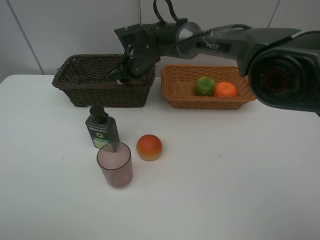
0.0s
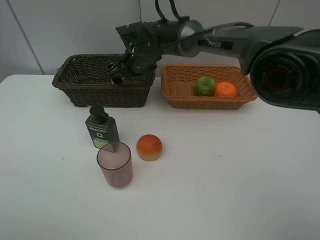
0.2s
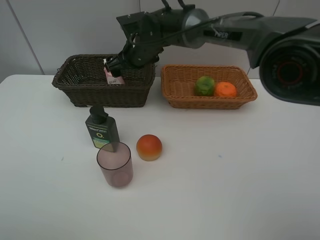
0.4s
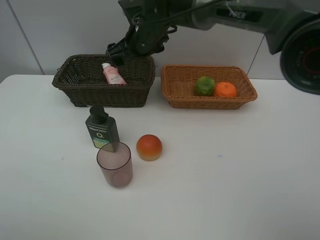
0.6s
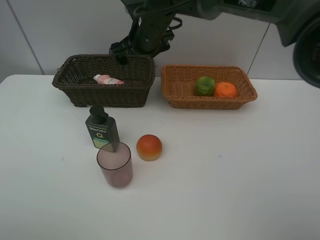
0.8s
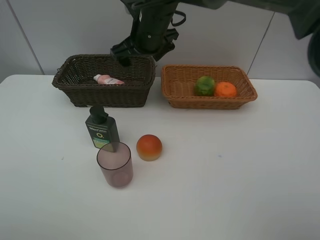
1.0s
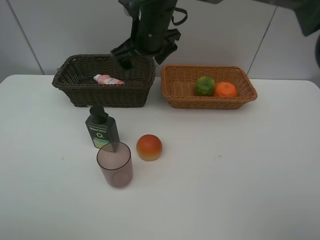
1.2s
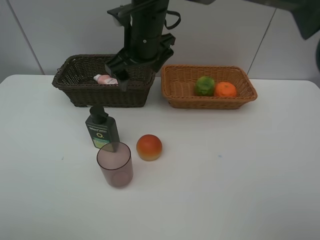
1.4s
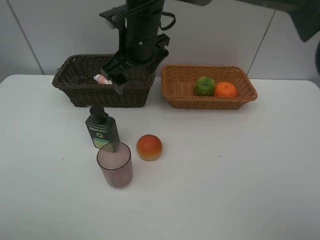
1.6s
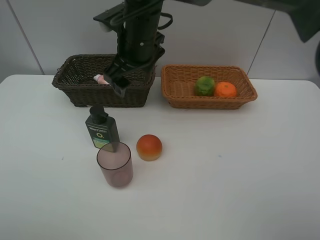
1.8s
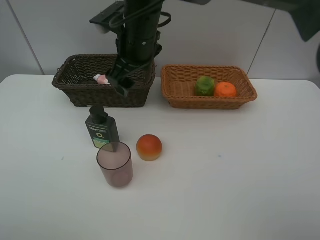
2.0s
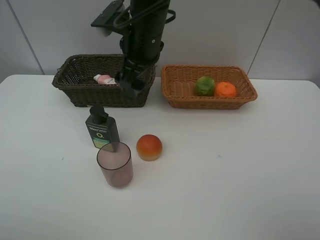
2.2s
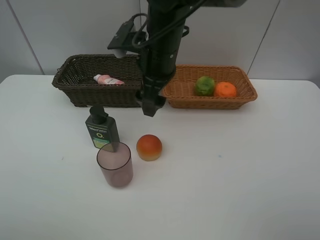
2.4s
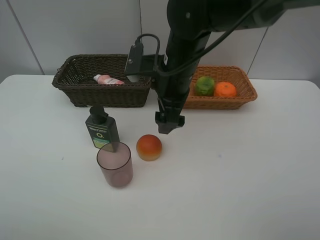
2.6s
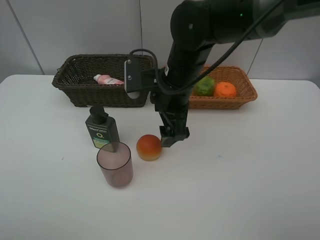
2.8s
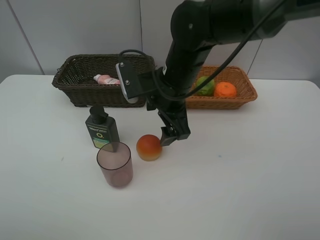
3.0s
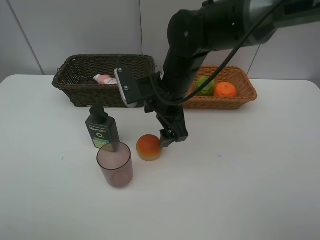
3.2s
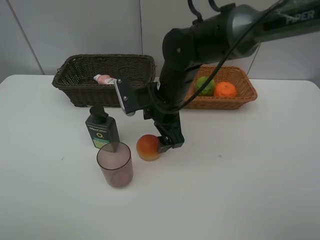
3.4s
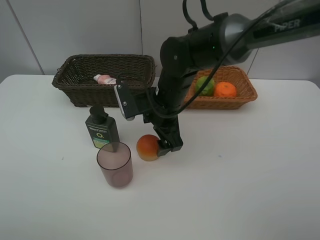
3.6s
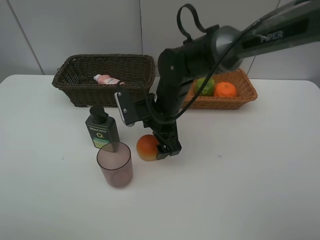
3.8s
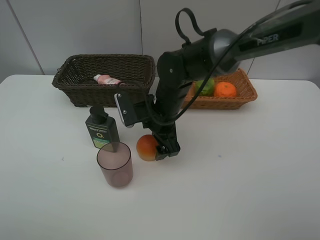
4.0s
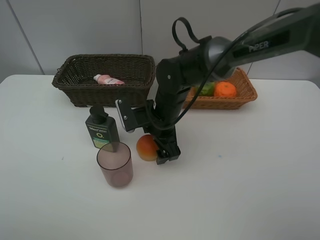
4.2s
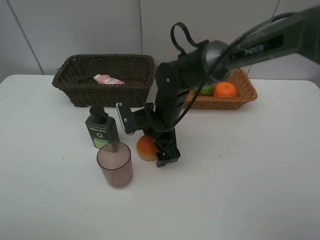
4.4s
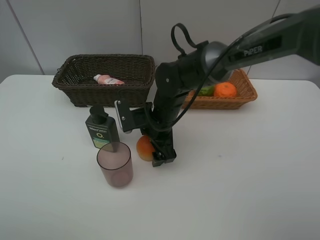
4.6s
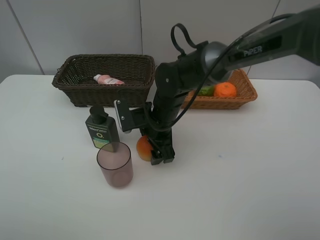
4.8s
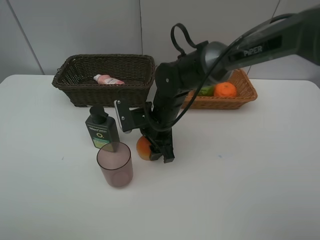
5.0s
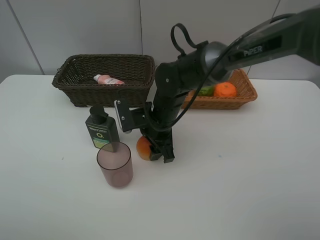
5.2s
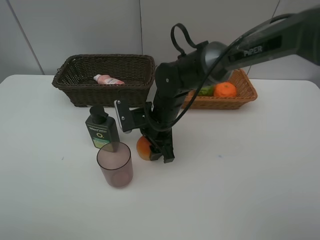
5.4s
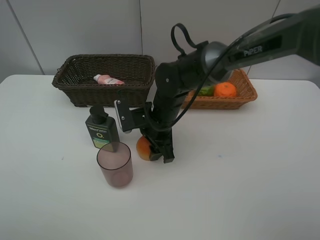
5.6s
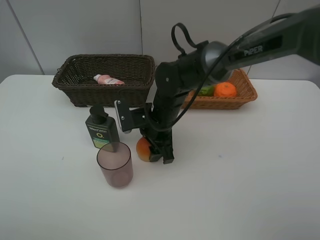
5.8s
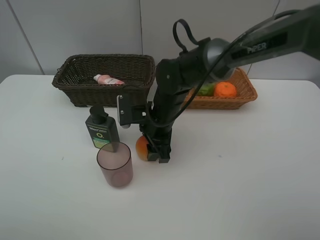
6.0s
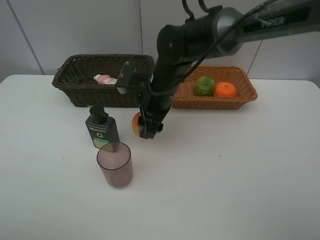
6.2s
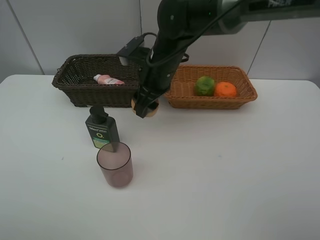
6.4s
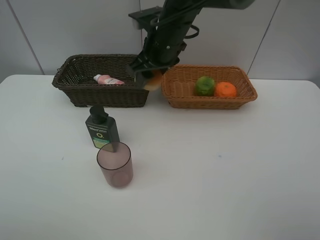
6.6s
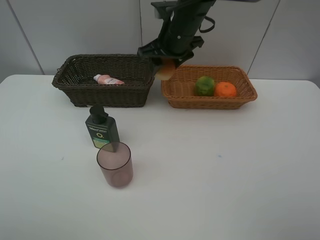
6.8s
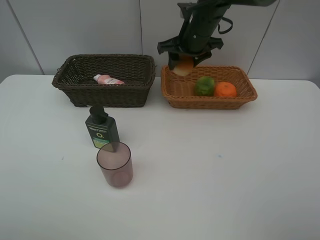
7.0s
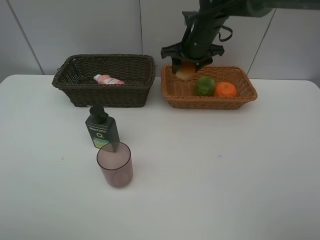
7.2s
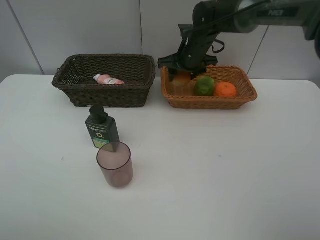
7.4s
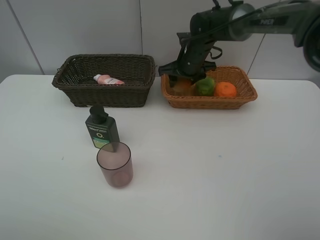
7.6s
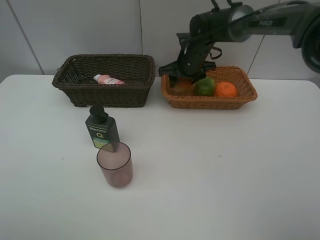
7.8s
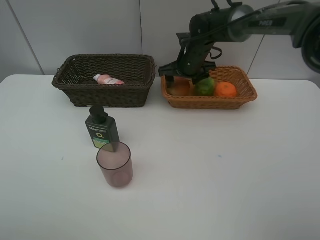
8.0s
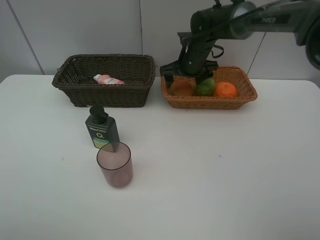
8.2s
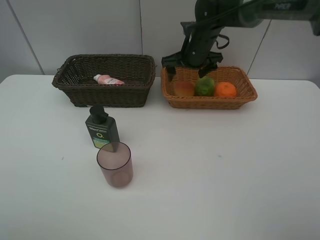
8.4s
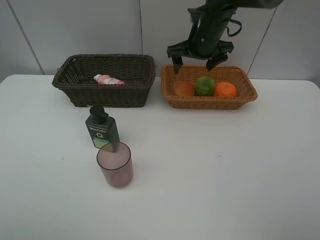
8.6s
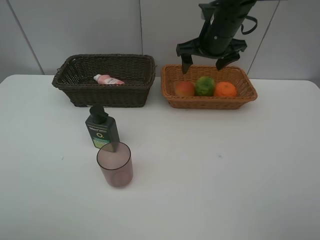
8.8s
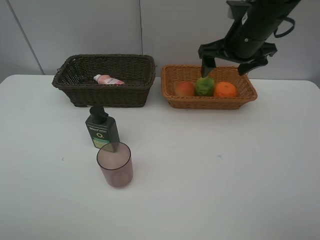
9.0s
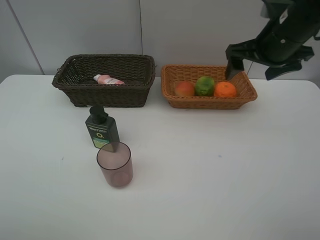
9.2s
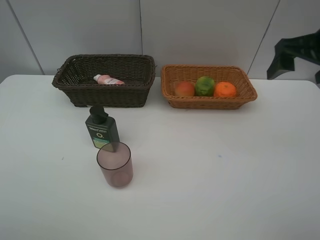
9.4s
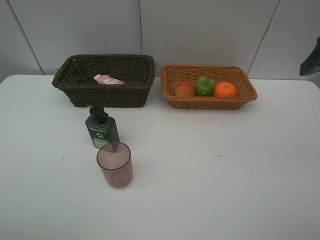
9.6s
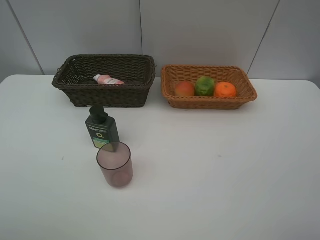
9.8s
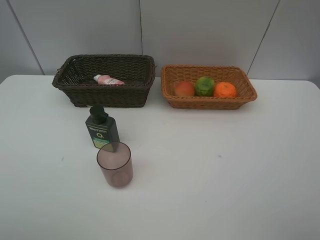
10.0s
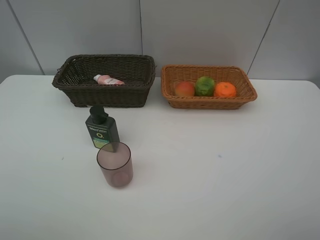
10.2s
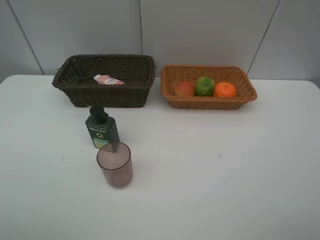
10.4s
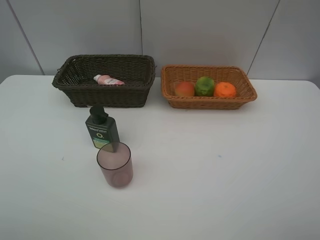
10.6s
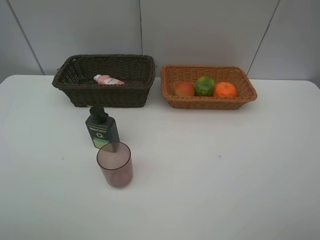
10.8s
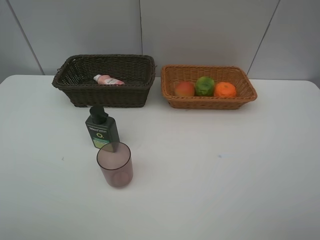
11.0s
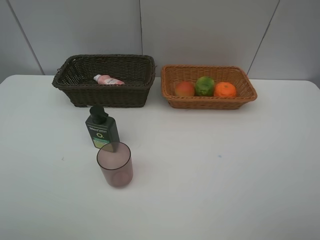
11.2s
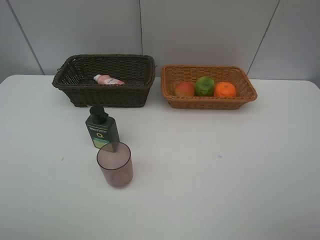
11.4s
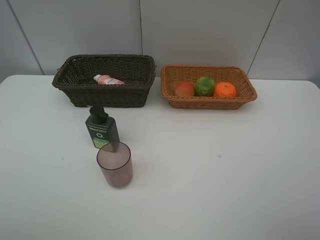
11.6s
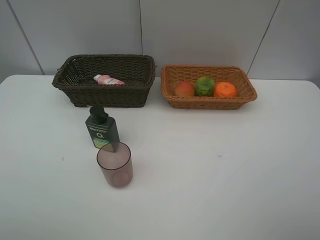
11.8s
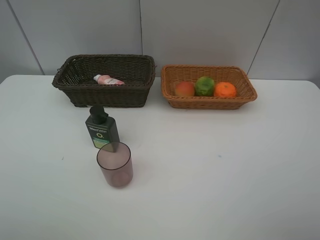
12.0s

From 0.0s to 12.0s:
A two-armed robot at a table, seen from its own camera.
Task of the whole recording: place multiple objects separately in different baskets.
From 0.0s to 1.6s: The right gripper goes roughly 15 cm upward and backward, and opens its fingers.
From 1.6s to 3.0s: The right gripper moves to the right, downward and backward, about 10 cm.
From 3.0s to 4.4s: The right gripper heads downward, covering roughly 10 cm.
From 4.4s to 6.0s: The right gripper closes up.
From 6.0s to 7.6s: The right gripper travels forward and to the right by roughly 15 cm.
From 7.6s to 9.0s: The right gripper goes approximately 20 cm backward, upward and to the right, and opens up.
From 9.0s to 10.4s: The right gripper travels backward by approximately 40 cm.

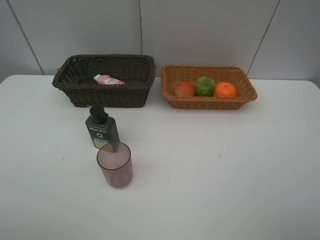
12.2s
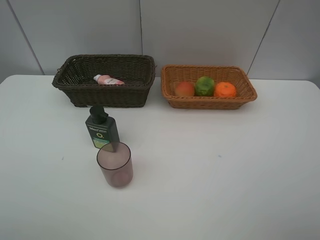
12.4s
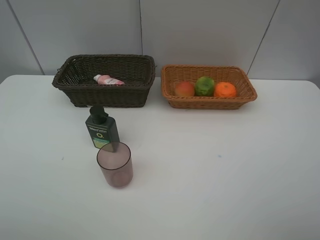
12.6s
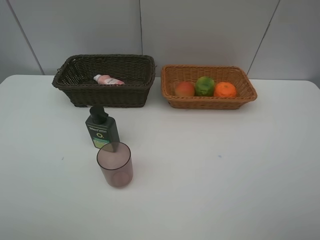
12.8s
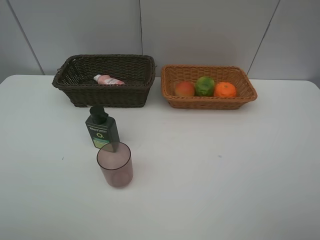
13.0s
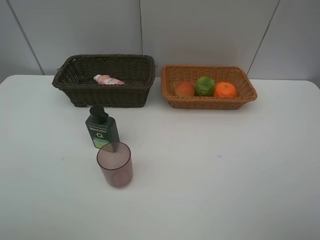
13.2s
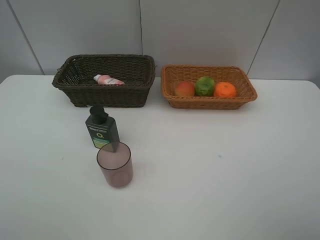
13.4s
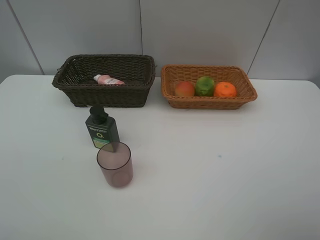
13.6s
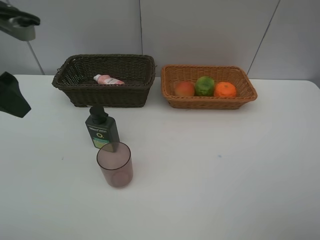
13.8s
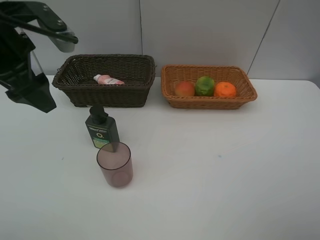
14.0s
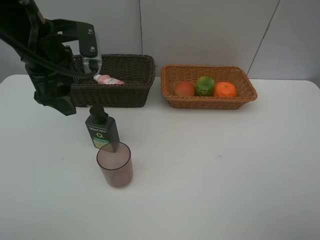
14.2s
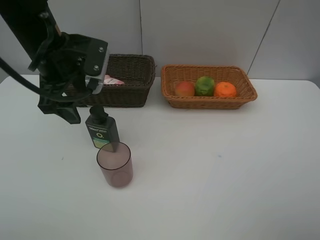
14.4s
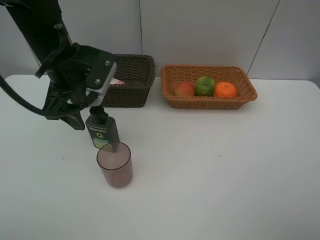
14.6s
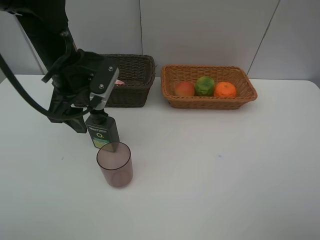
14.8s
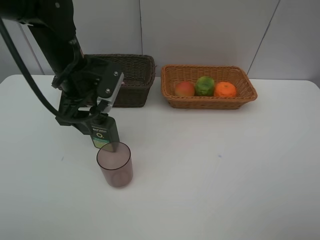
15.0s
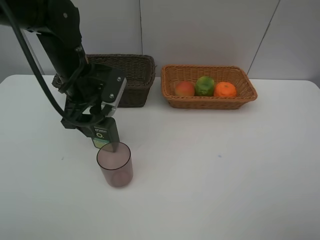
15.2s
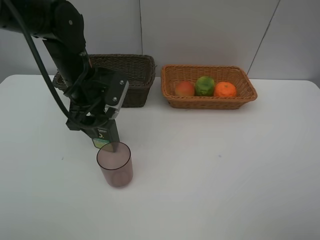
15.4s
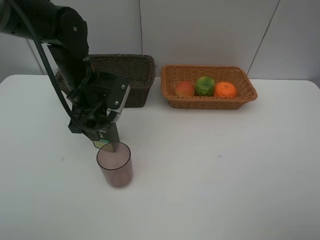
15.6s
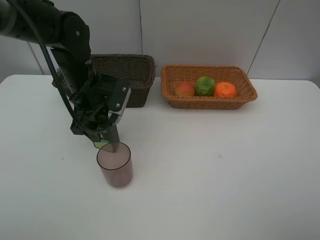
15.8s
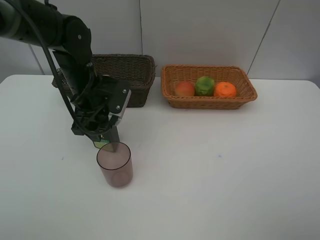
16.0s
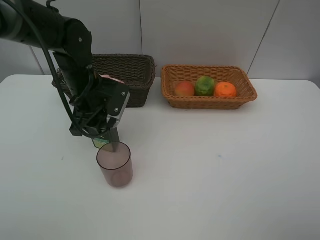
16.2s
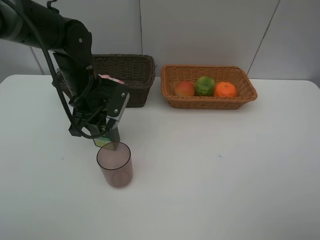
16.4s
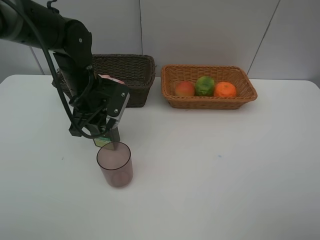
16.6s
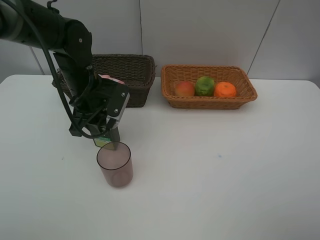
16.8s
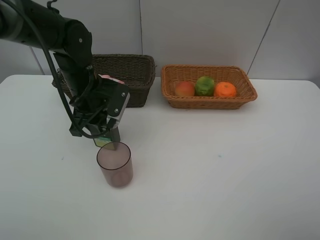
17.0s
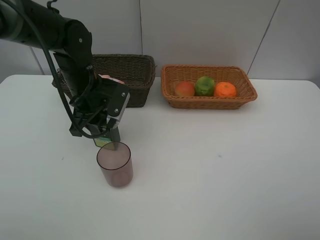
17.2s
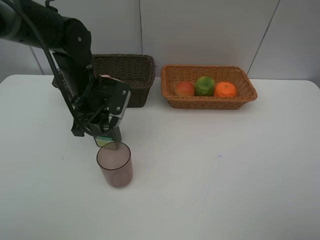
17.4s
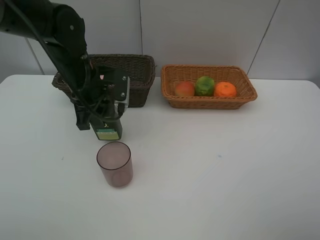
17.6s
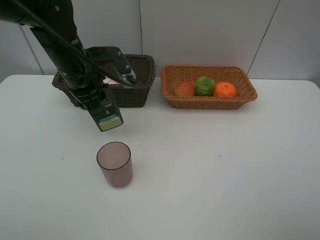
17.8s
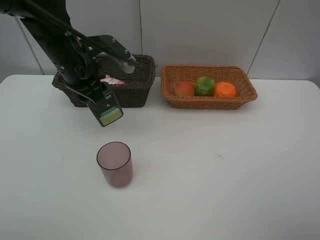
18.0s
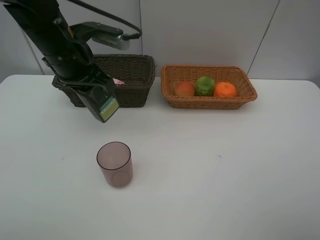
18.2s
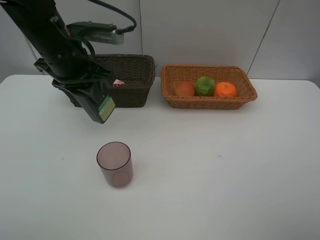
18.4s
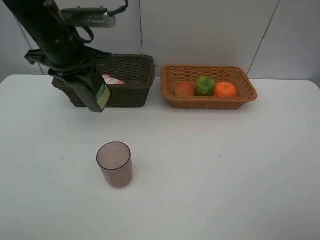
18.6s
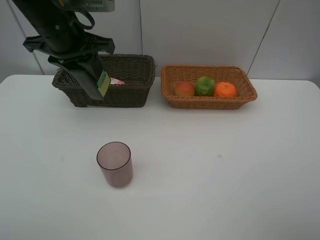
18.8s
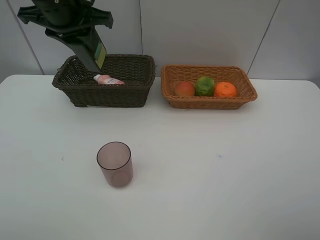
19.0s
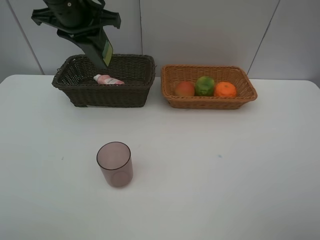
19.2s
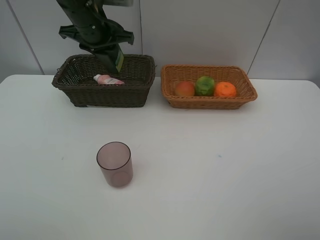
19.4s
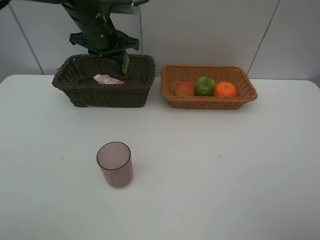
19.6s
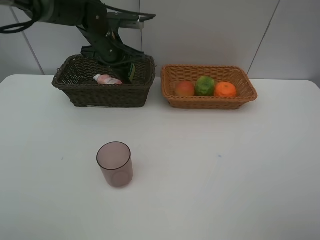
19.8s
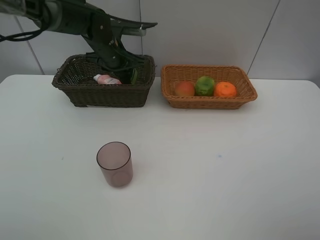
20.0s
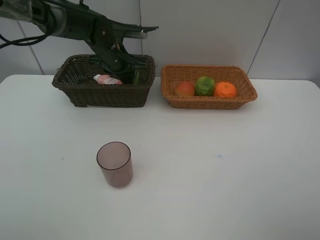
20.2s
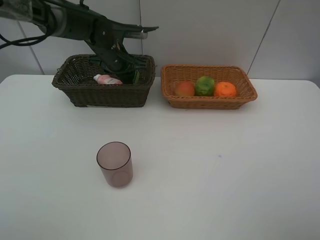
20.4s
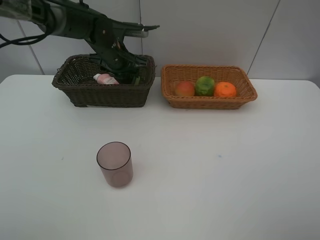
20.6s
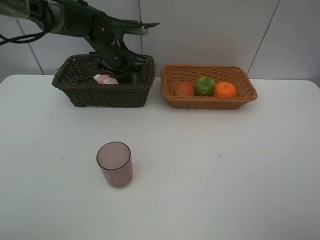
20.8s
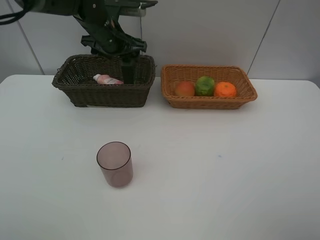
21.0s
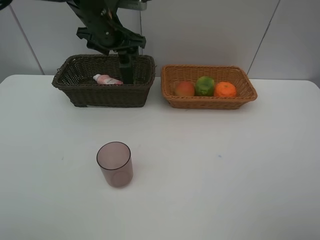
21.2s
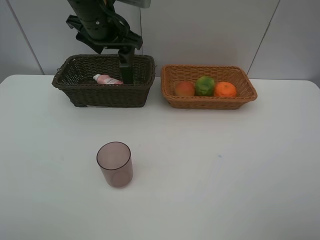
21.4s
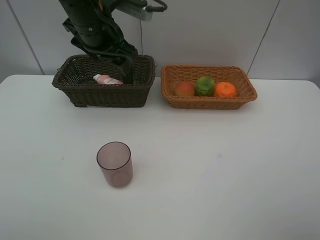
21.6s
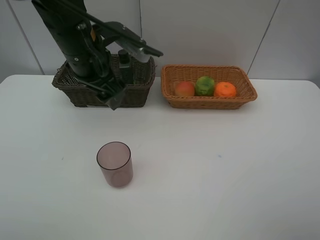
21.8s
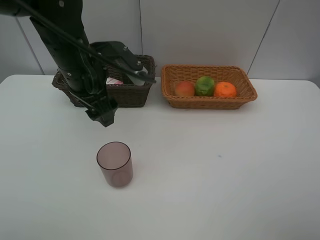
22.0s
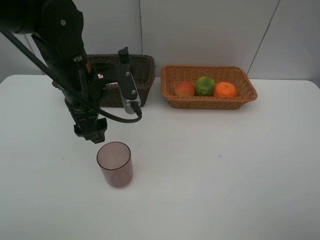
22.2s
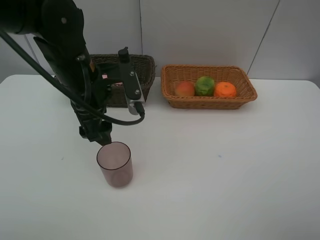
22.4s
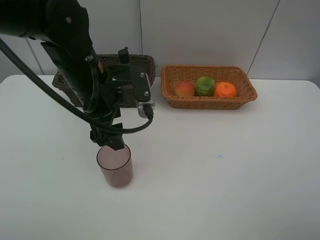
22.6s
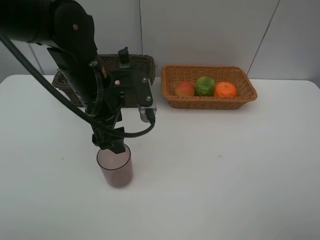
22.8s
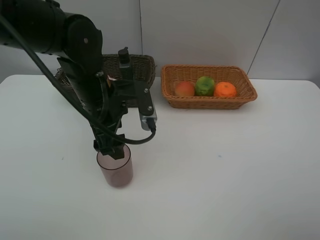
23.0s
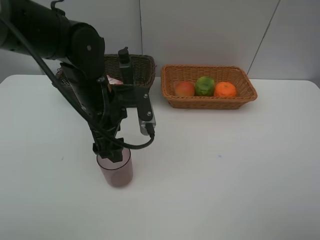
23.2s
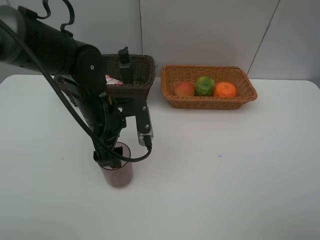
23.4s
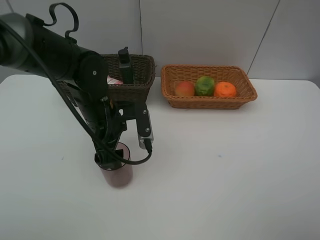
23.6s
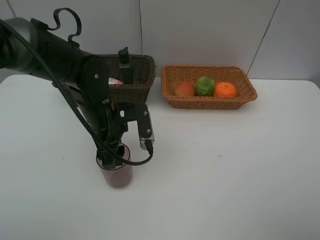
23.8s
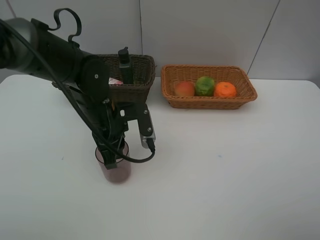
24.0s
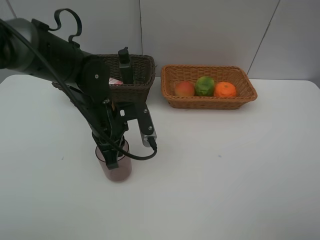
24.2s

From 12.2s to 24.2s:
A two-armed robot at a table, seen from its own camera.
Task of the whole recording: place multiple objects separately in different baskets.
From 12.2s to 13.8s: The left gripper is displaced forward by roughly 25 cm.
From 13.8s to 15.2s: The left gripper heads downward, to the right and forward, covering approximately 20 cm.
From 15.2s to 16.6s: The left gripper closes.
From 16.6s to 18.2s: The left gripper heads upward, covering some 10 cm.
From 18.2s to 19.8s: The left gripper moves forward and downward, some 15 cm.
From 19.8s to 21.2s: The left gripper heads upward, covering about 5 cm, and opens.
From 21.2s to 22.6s: The left gripper goes roughly 15 cm backward.
From 22.6s to 24.2s: The left gripper is displaced downward by approximately 10 cm, and closes.
